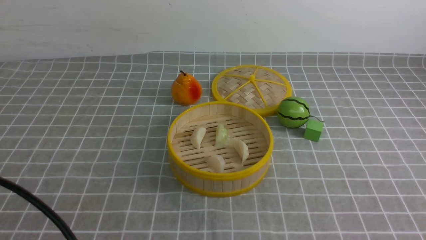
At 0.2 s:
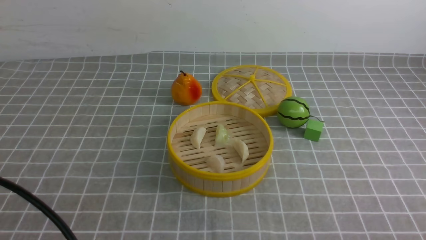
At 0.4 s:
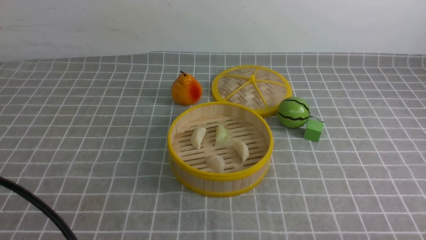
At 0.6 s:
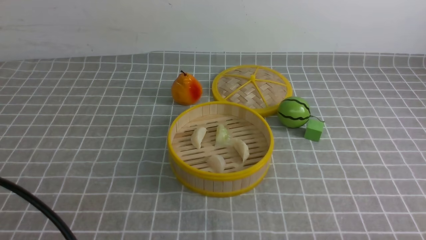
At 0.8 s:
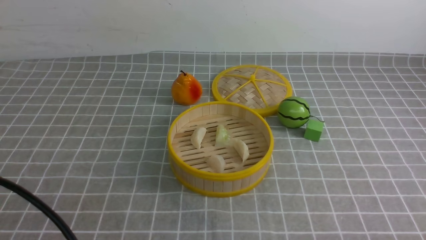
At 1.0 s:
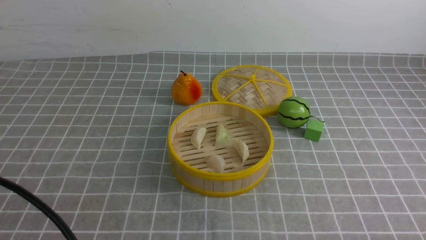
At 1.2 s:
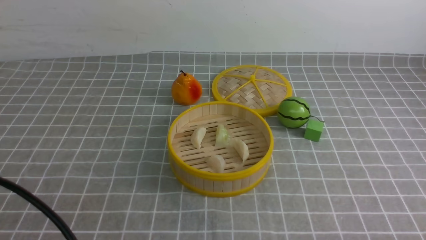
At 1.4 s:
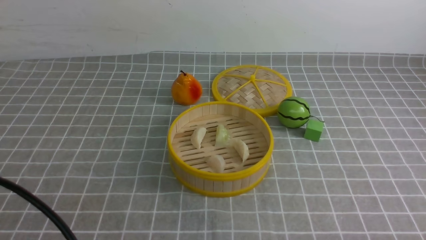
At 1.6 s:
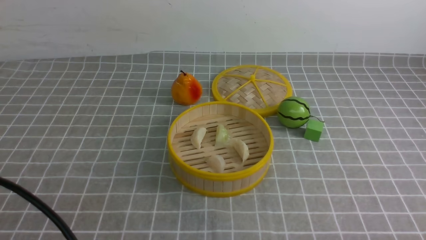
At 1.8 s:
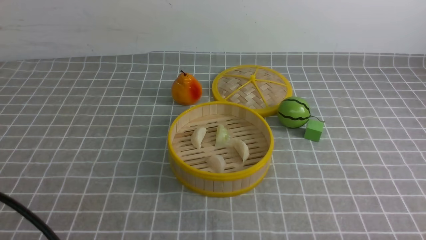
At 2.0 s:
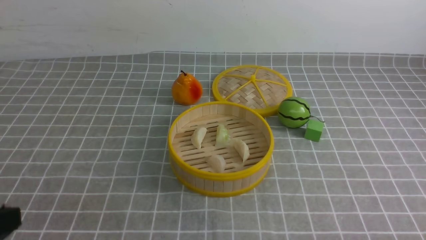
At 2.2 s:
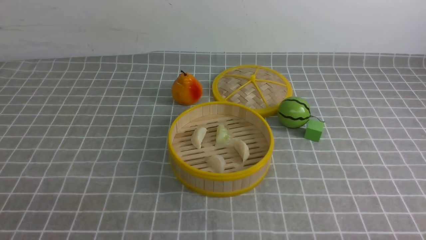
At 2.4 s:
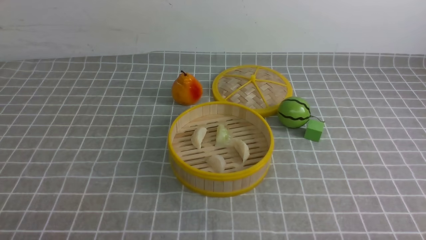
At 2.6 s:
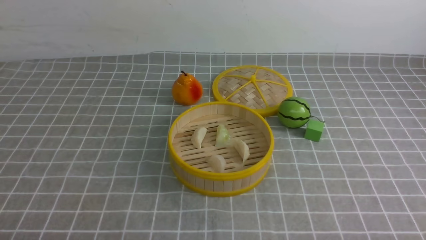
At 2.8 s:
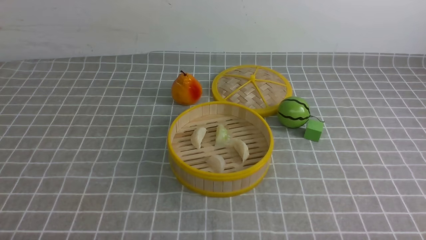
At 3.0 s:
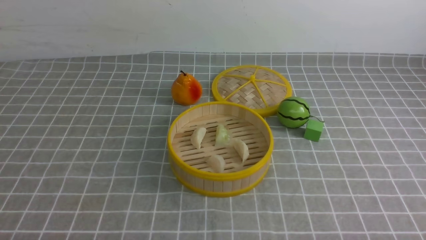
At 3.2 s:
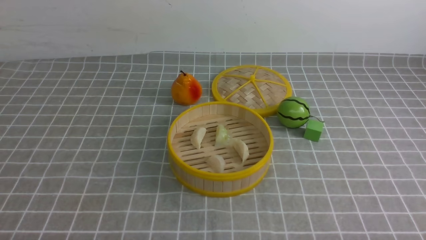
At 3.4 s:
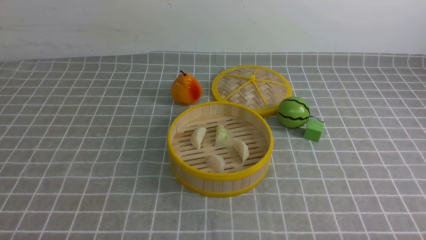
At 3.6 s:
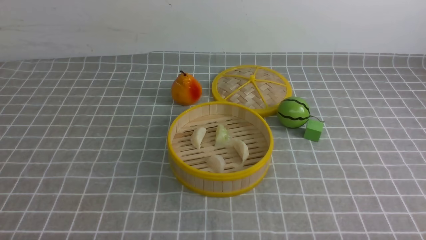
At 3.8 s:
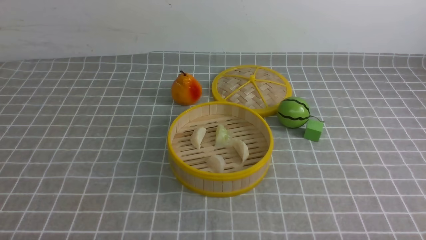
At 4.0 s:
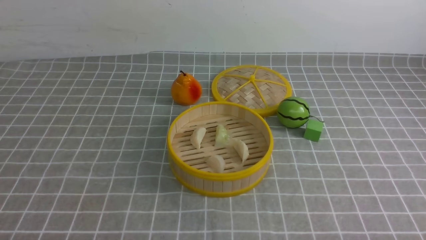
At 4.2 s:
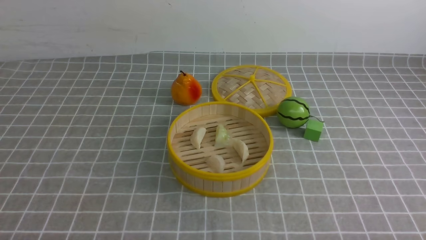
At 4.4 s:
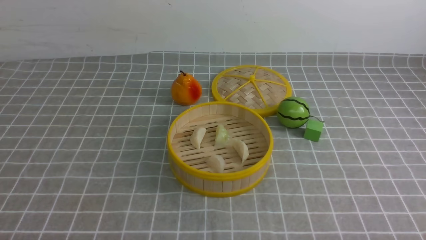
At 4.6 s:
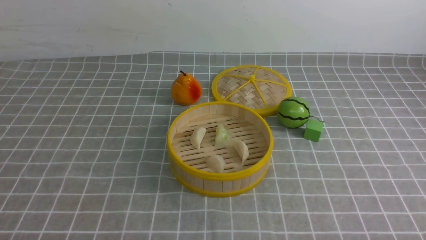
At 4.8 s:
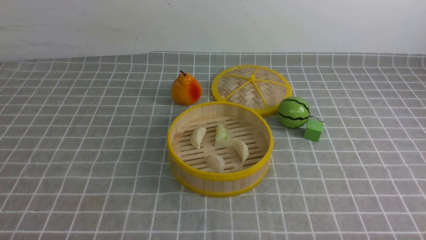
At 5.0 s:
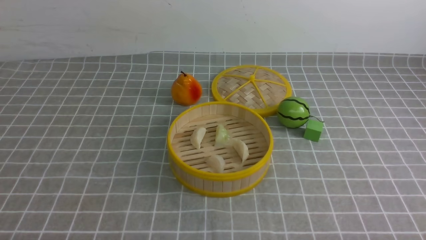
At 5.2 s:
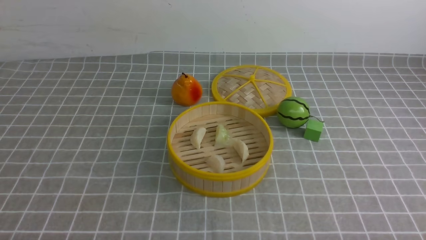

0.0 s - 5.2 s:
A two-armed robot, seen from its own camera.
Task of the whole recording: put the dumplings into the steamer on the table with the grey tablecloth.
1.8 s - 3.4 s: The left gripper heads downward, covering roughly 15 cm.
3.4 s - 5.2 s: Neither gripper changes place.
